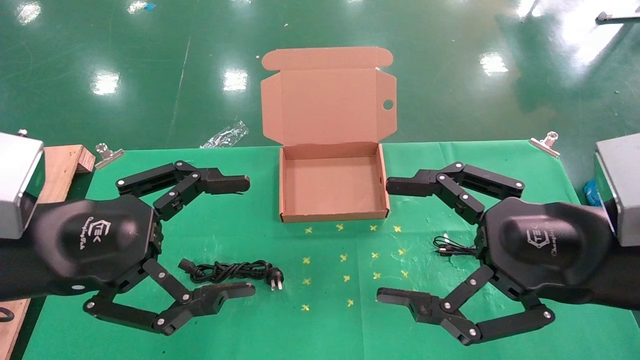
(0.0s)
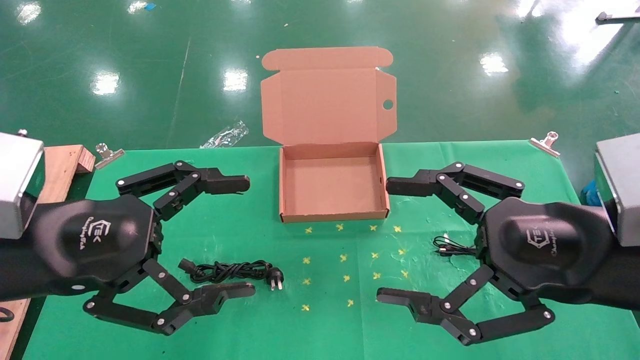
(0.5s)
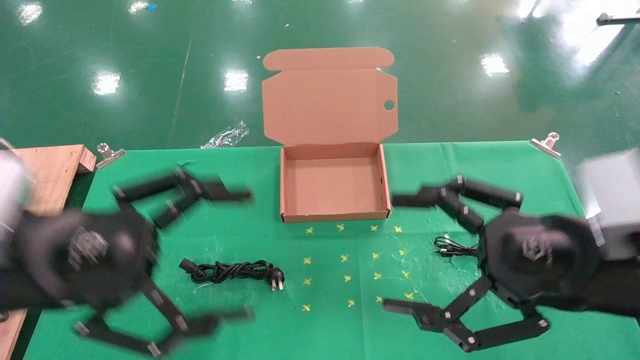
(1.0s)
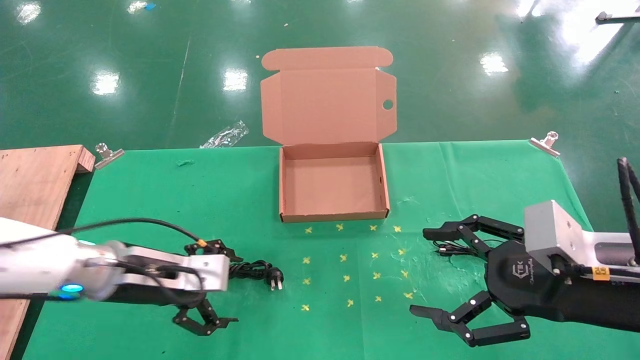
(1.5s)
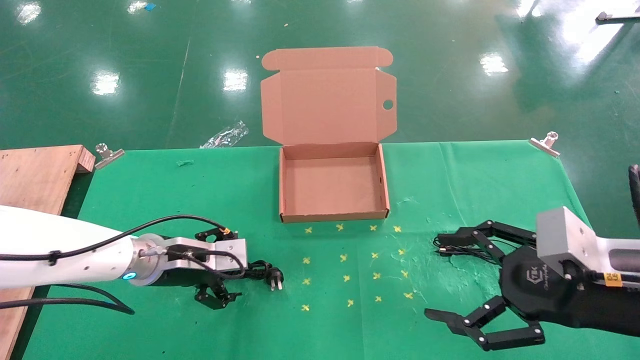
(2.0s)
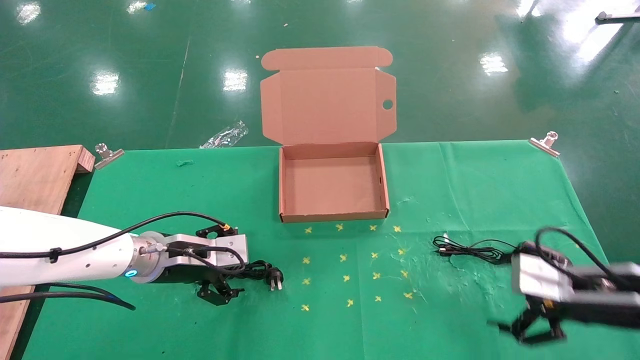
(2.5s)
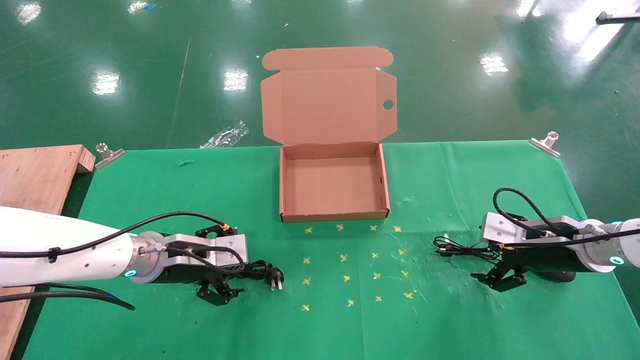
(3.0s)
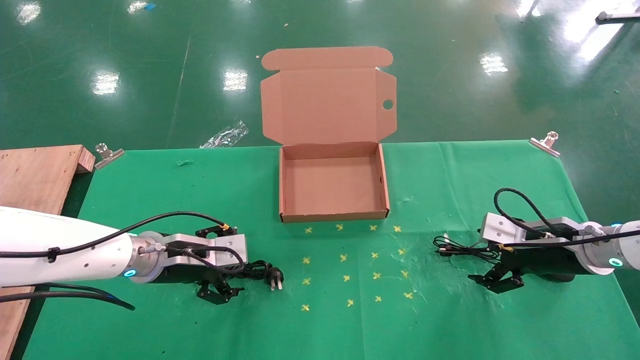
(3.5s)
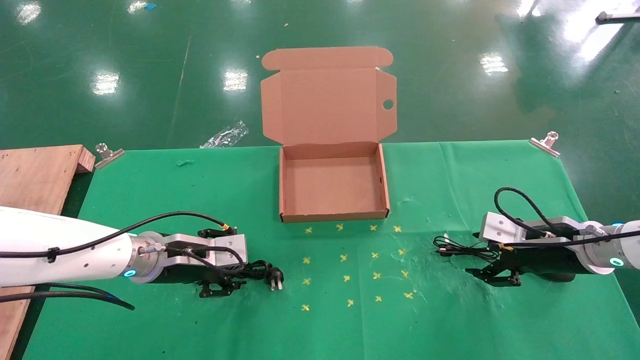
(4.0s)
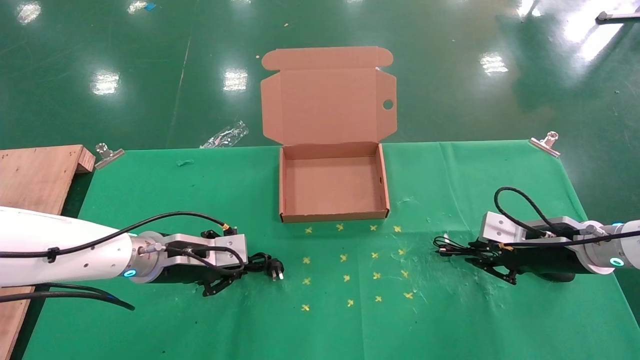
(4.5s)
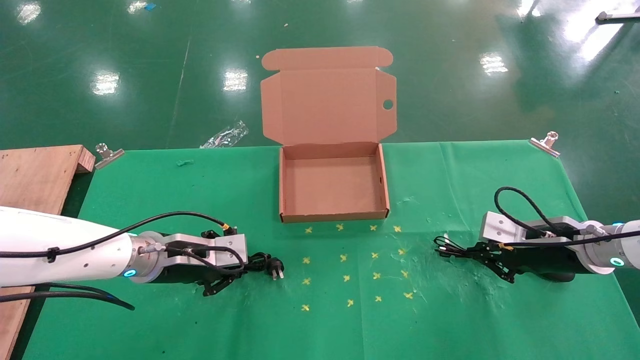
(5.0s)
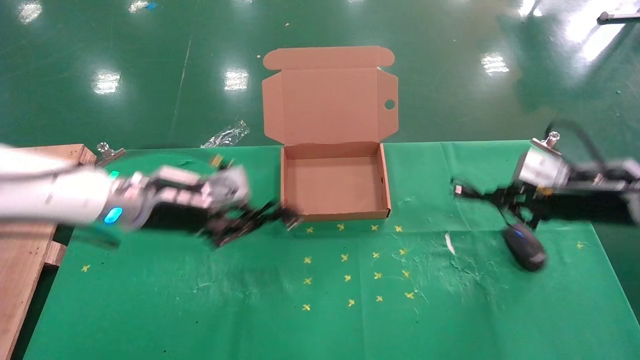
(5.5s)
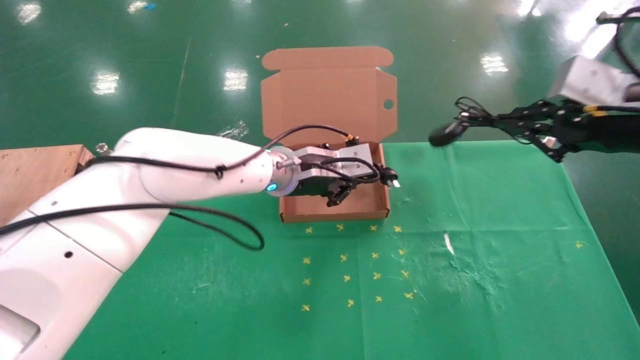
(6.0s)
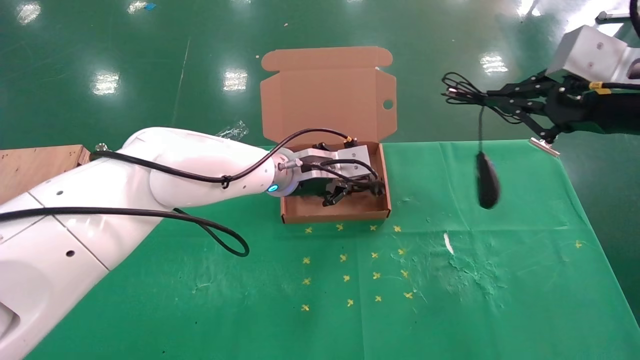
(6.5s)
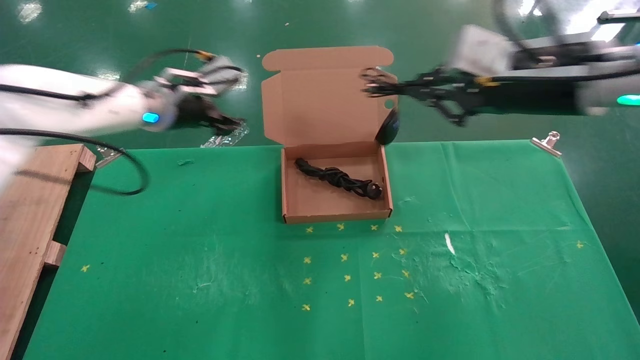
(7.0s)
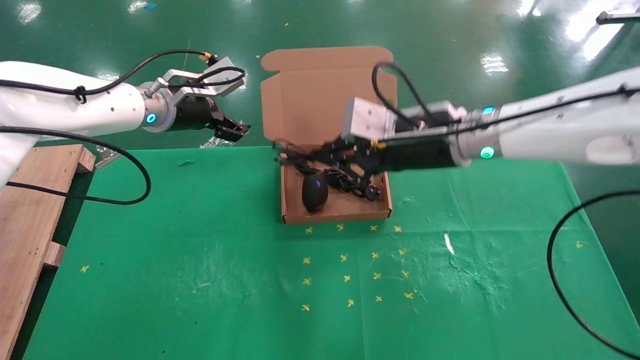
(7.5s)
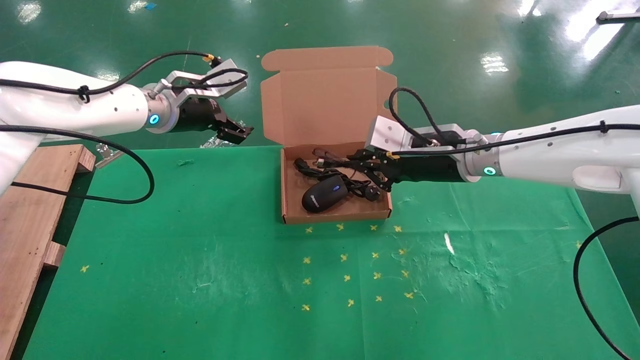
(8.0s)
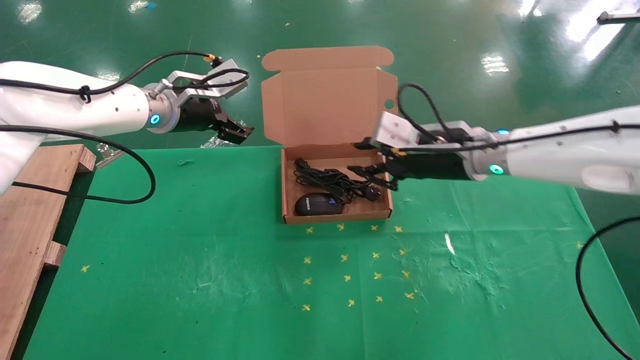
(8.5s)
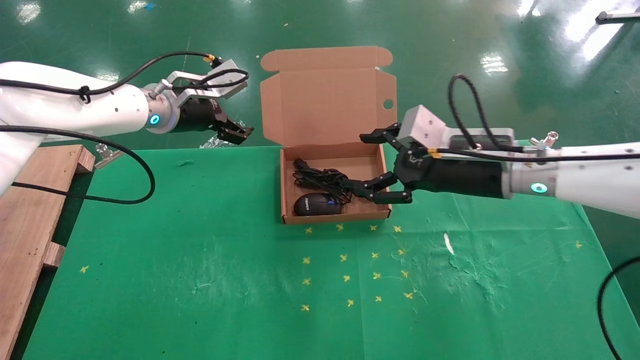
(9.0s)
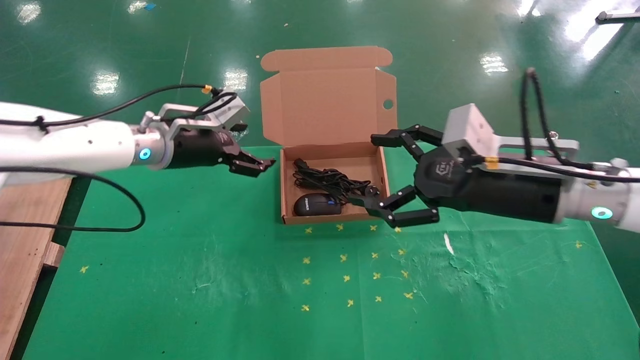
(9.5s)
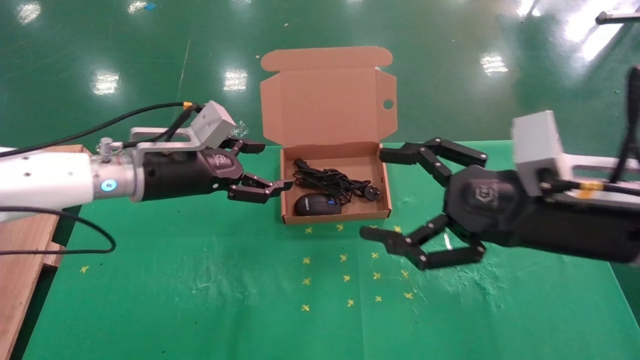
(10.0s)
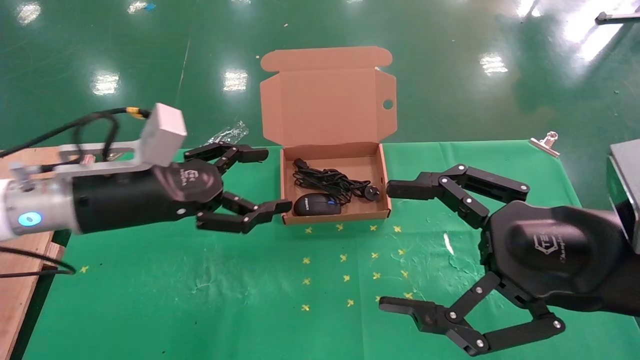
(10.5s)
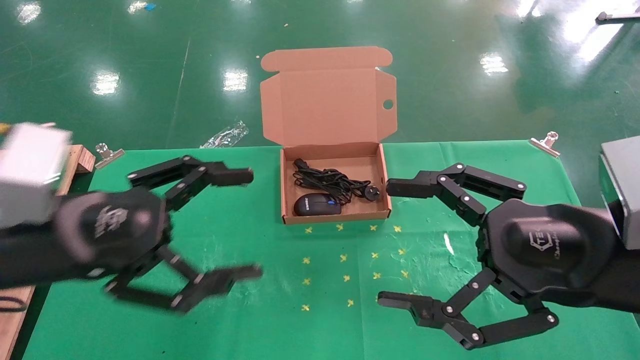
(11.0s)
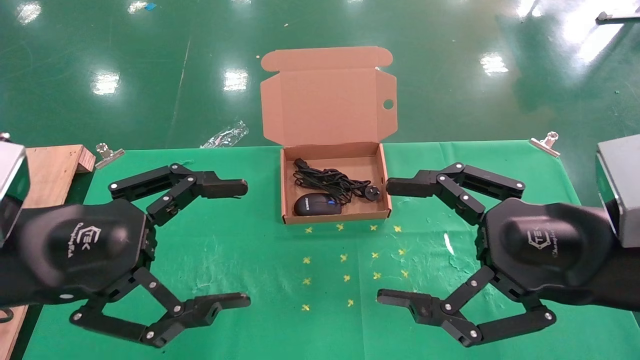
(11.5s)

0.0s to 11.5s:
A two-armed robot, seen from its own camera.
Task of the whole recording: grasp data cable left put into box grasp mouse right put into box.
Step, 1.5s to 5.0s: Simultaneously pick up the mouse and power cord from the accessory packaging area.
Step, 5.5s to 8.5s: Place the mouse and power cord into the box.
0.0s to 2.0s: The left gripper shifts some 20 cm forward and downward. Meanwhile the right gripper is displaced downward and to the right by about 10 cm.
2.0s to 4.0s: The right gripper is displaced forward by roughly 15 cm.
4.0s to 6.0s: The left gripper is displaced to the right and upward by roughly 20 cm, and closes up, while the right gripper goes roughly 20 cm upward, and closes up.
6.0s to 7.5s: The right gripper moves to the left and forward, roughly 20 cm, while the left gripper goes roughly 20 cm to the left and upward, and opens.
7.5s to 9.5s: The left gripper moves about 5 cm; the right gripper heads backward and to the right, covering approximately 10 cm, and opens up.
9.5s to 11.5s: The left gripper shifts approximately 25 cm backward, while the right gripper shifts roughly 15 cm backward.
